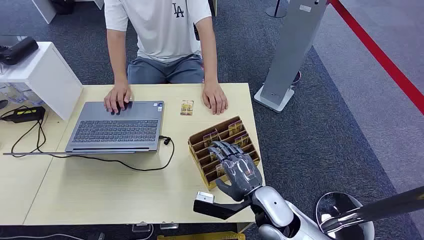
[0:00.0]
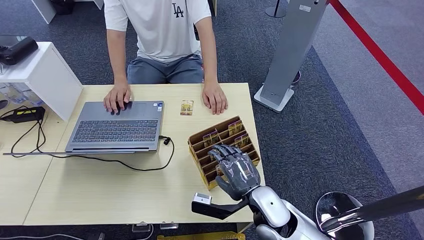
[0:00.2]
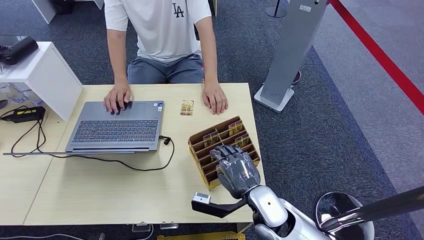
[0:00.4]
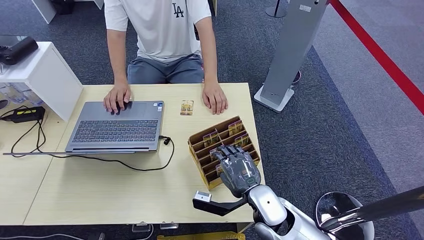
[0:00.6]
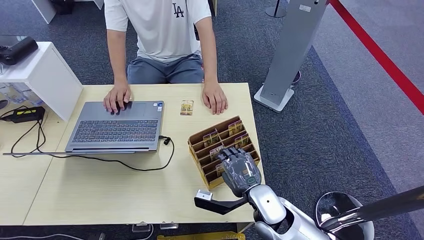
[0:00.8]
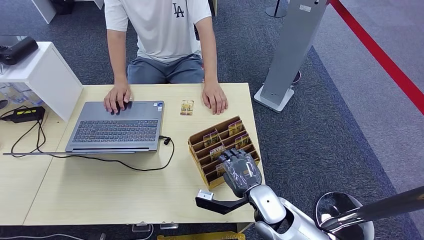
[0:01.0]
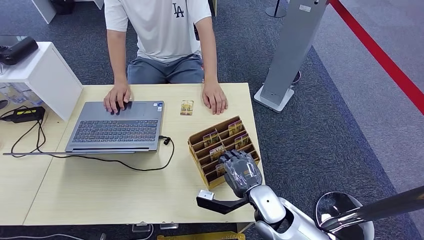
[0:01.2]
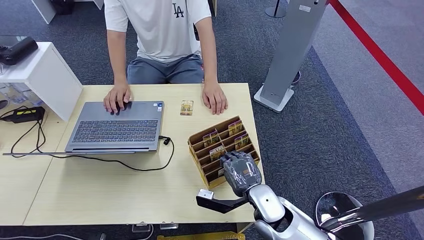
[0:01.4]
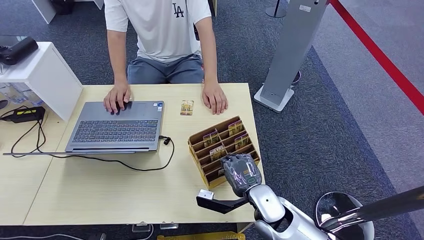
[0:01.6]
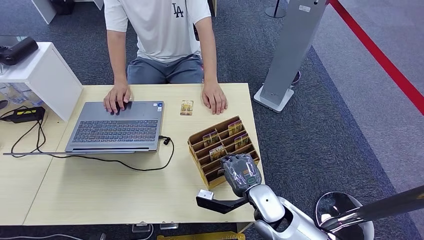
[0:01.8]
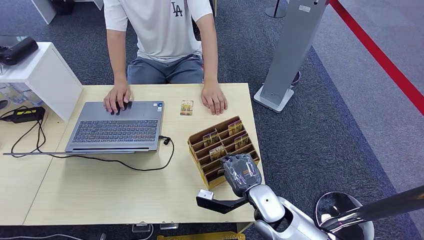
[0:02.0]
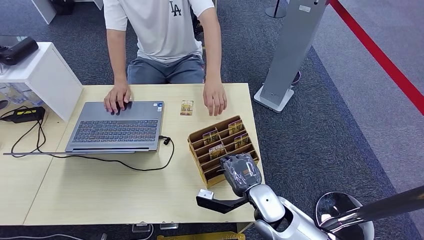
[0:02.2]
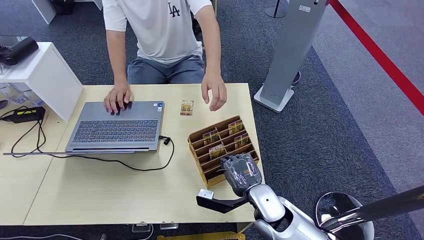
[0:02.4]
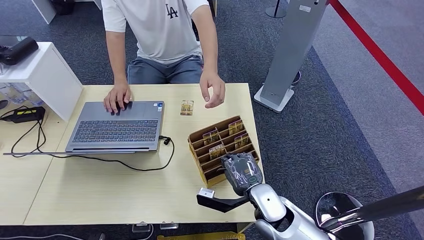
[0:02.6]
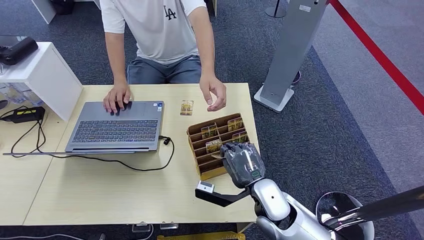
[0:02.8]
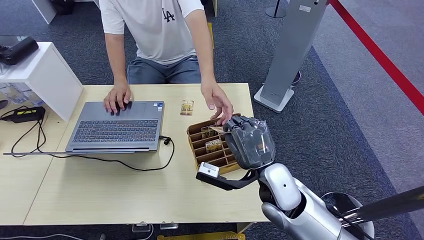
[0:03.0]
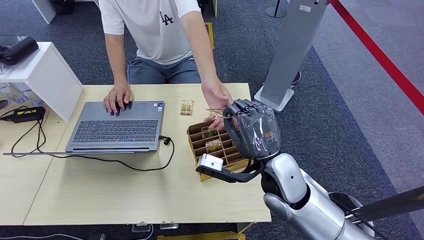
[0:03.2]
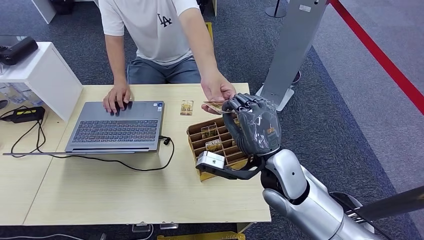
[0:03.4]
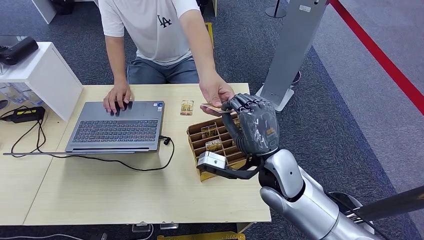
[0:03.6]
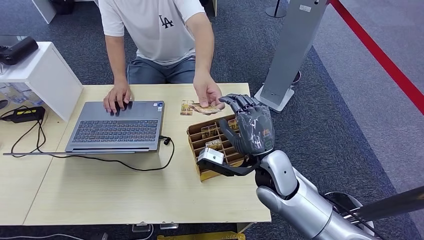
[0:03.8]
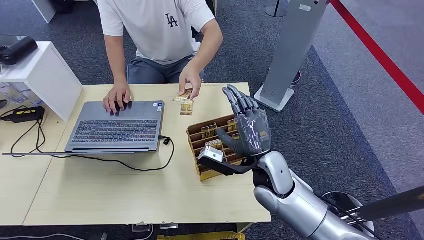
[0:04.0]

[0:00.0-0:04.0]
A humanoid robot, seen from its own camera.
Step, 0:00.0 to 0:02.8: Pick up the room card from the card holder.
Step, 0:03.0 to 0:03.8: Hand the room card to the target.
0:01.4 to 0:02.6: Both hands stay about where they are.
0:02.6 to 0:04.0: The right hand shifts approximately 10 cm upward.

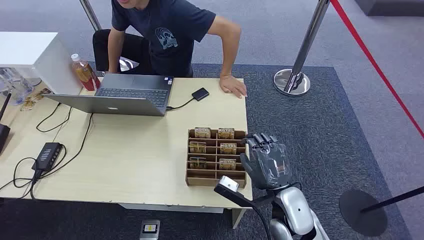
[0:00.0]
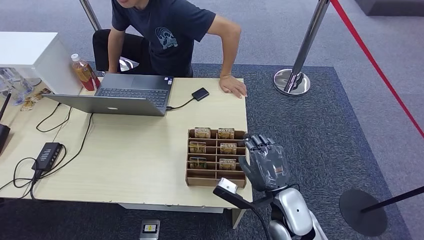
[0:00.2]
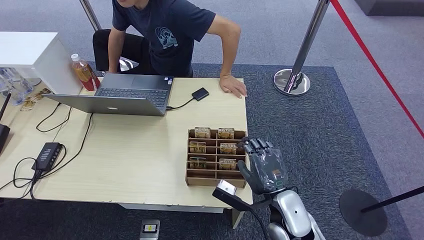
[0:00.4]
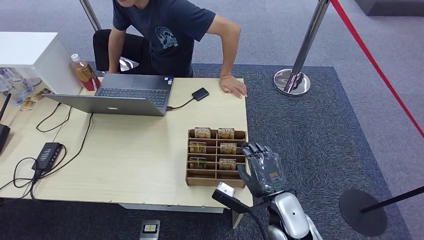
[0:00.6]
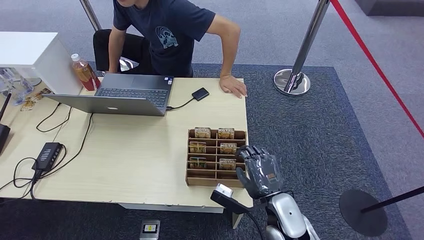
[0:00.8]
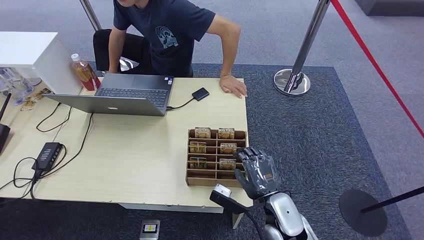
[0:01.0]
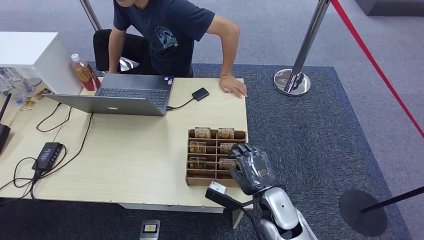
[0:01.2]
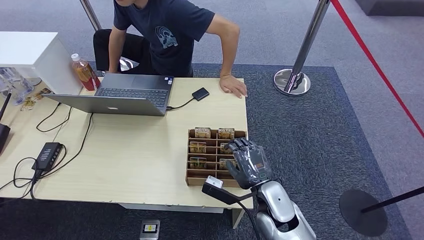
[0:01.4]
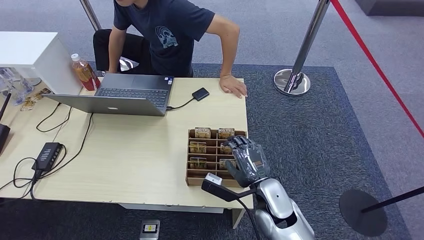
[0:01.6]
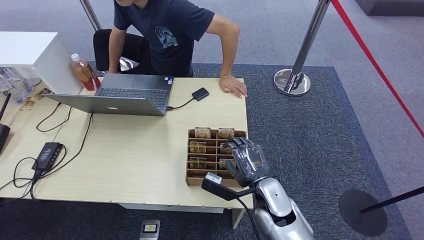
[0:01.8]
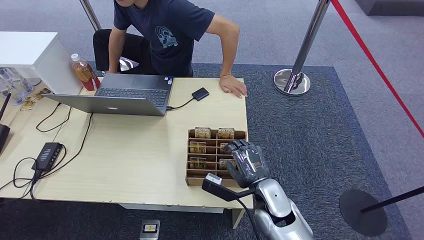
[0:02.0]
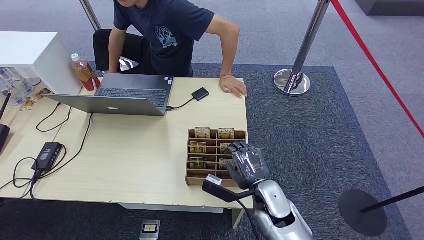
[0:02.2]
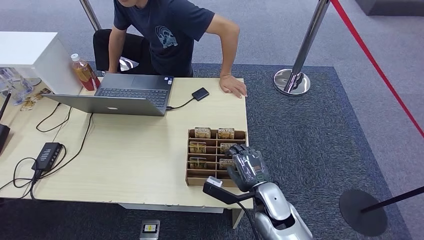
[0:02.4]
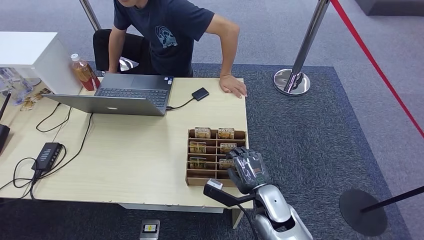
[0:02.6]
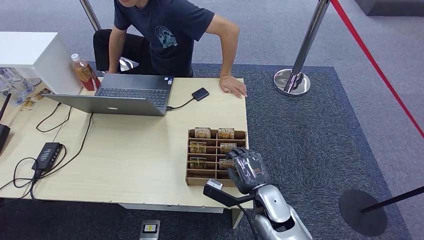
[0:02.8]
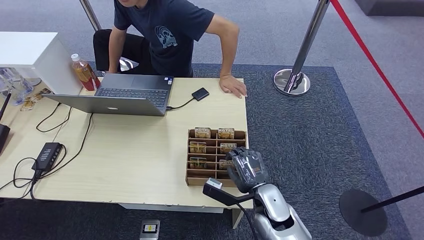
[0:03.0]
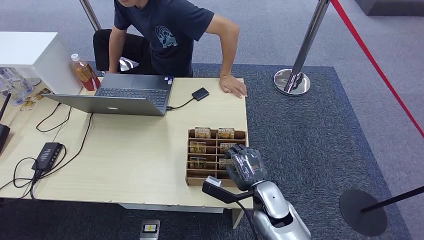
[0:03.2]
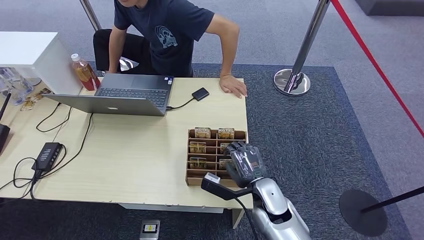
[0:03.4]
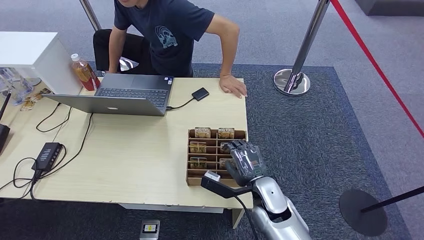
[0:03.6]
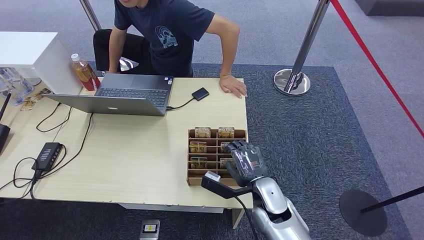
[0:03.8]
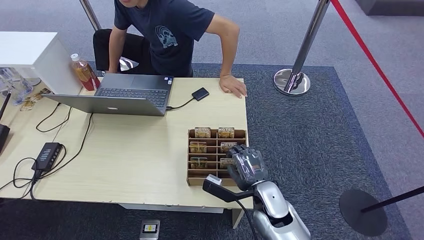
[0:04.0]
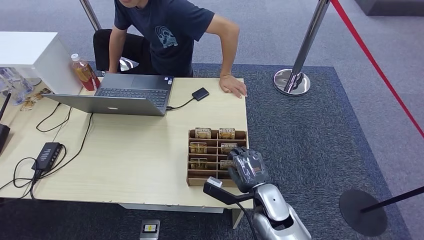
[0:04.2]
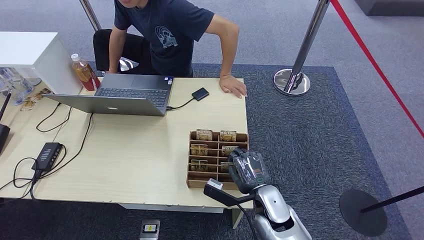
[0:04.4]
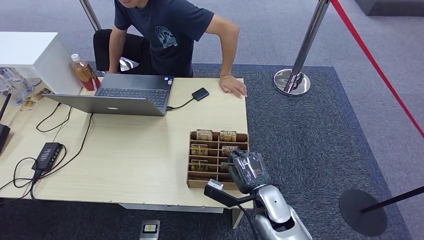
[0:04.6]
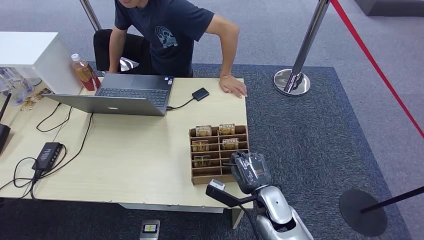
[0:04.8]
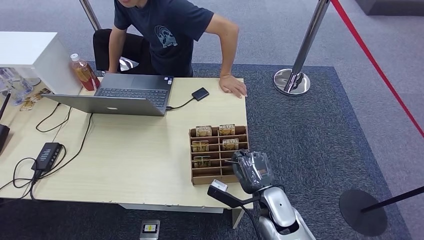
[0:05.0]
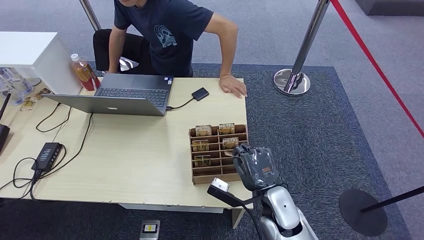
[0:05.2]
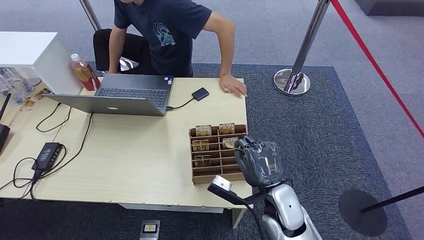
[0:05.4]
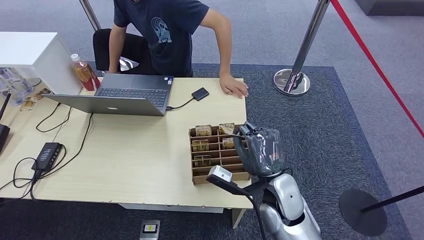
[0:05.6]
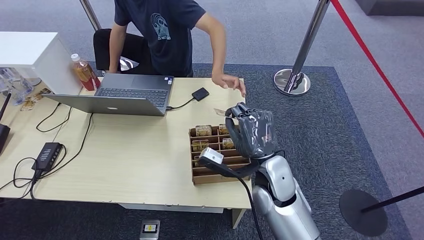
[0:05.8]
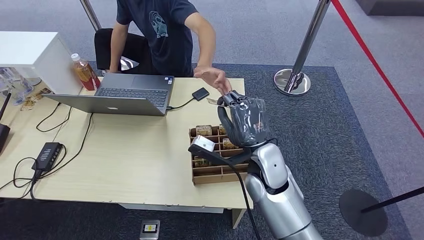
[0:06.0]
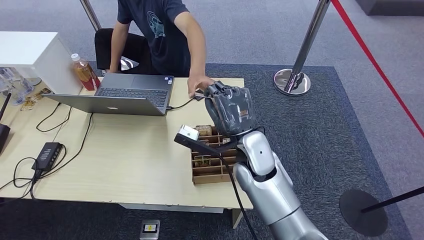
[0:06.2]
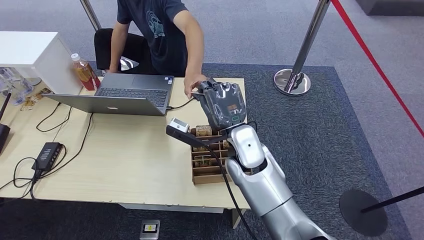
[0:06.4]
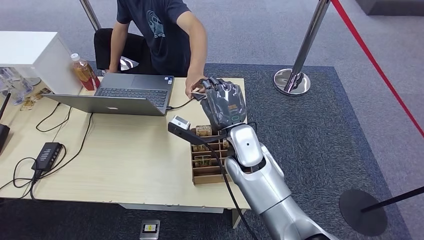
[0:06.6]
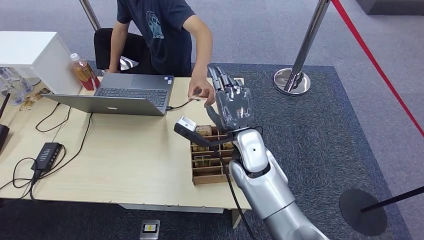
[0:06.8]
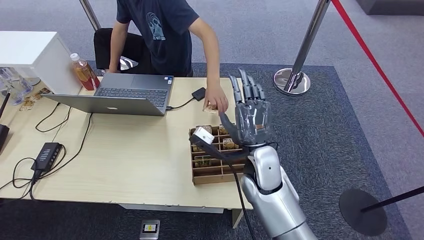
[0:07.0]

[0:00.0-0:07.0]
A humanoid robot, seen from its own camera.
Step, 0:00.0 to 0:05.8: Pick up the room card from the card holder.
Step, 0:06.0 to 0:07.0: Hand the room card to the target.
0:01.4 to 0:04.2: The hands move only a little.
0:04.2 to 0:05.6: The right hand goes roughly 10 cm upward.
0:05.6 to 0:07.0: The right hand travels forward by approximately 5 cm.
